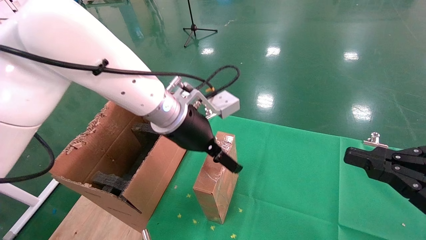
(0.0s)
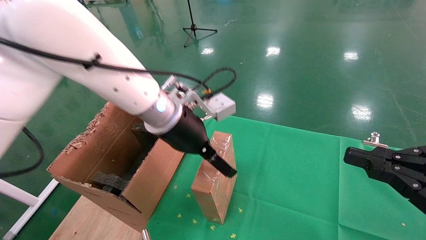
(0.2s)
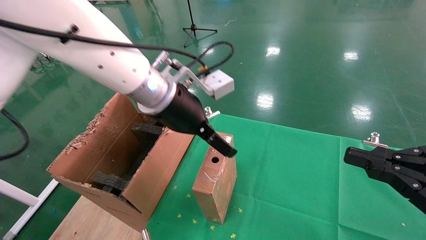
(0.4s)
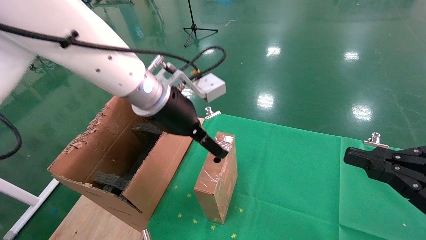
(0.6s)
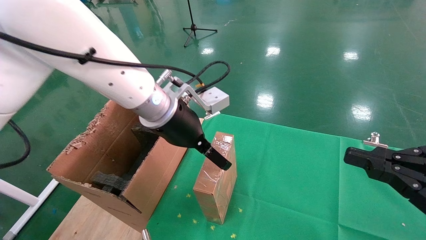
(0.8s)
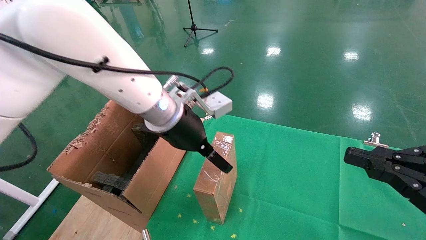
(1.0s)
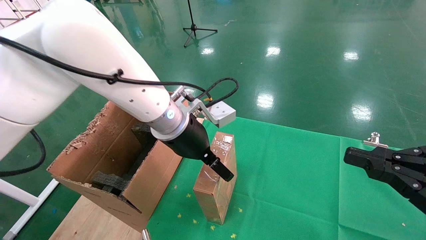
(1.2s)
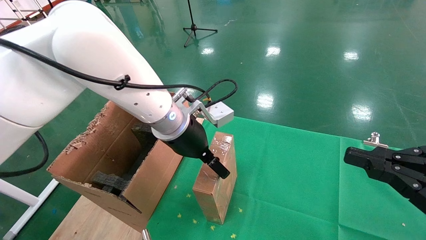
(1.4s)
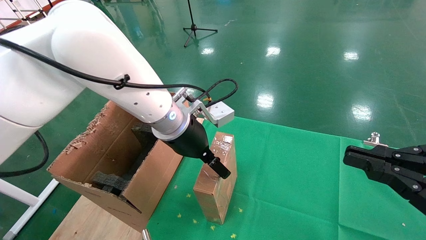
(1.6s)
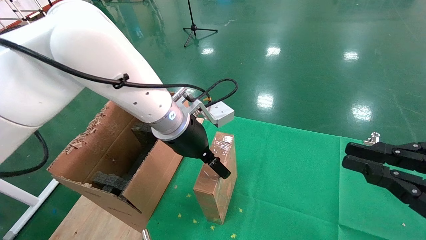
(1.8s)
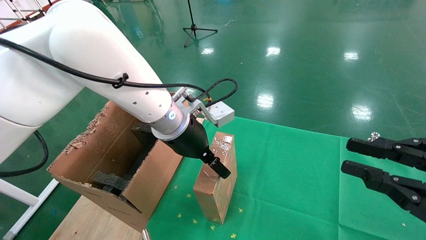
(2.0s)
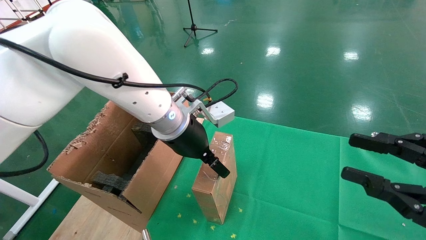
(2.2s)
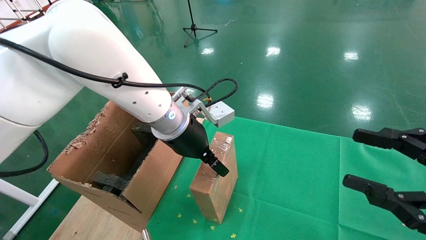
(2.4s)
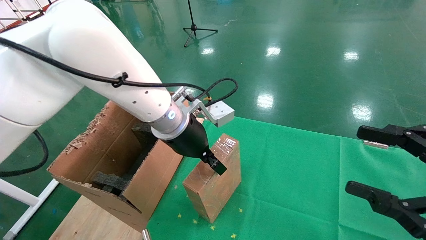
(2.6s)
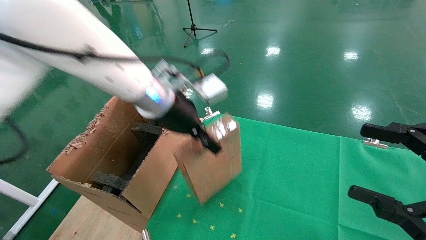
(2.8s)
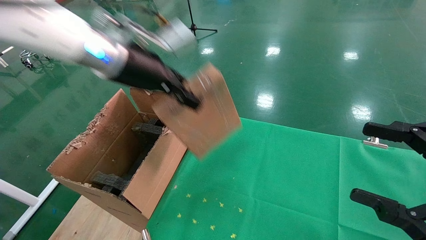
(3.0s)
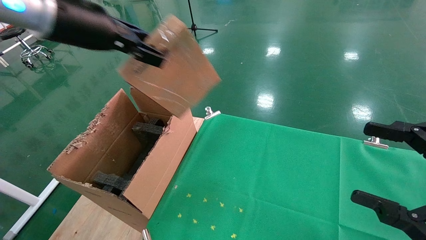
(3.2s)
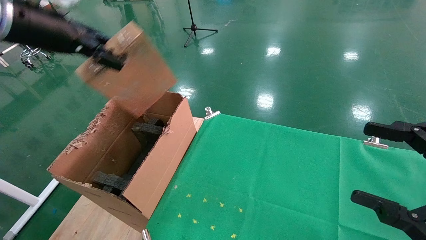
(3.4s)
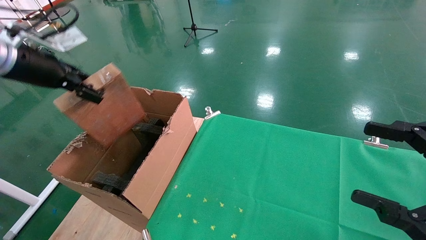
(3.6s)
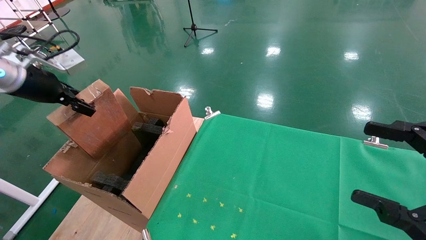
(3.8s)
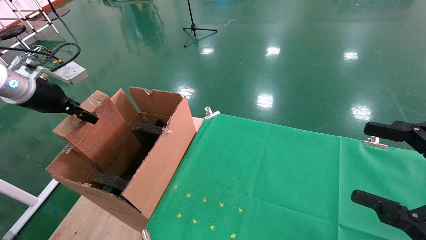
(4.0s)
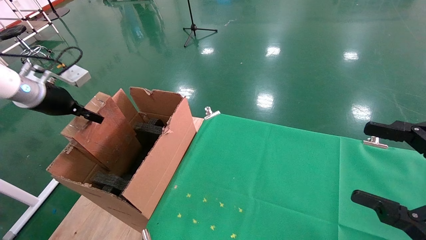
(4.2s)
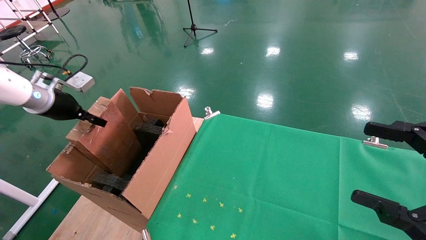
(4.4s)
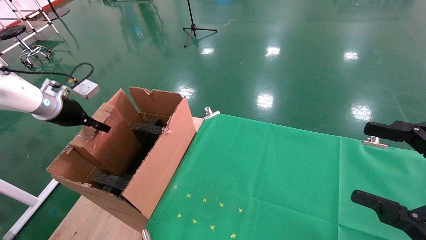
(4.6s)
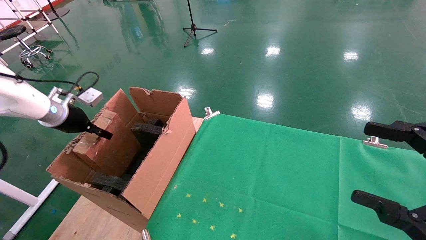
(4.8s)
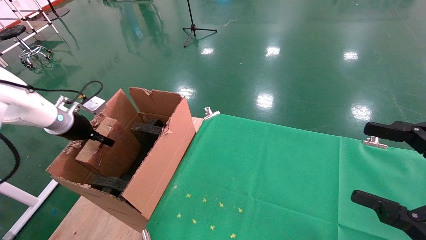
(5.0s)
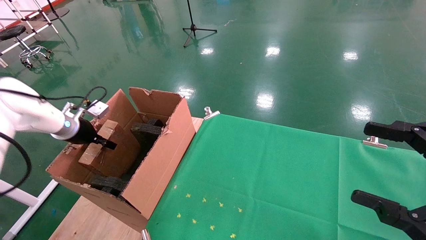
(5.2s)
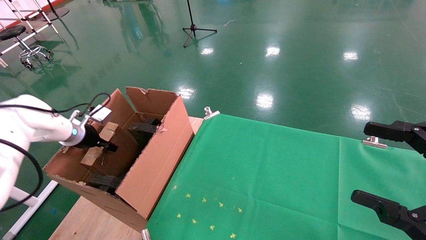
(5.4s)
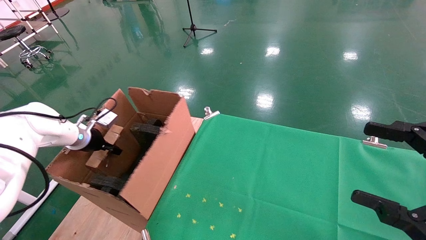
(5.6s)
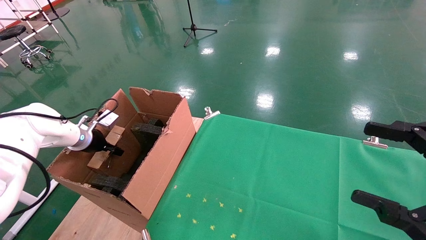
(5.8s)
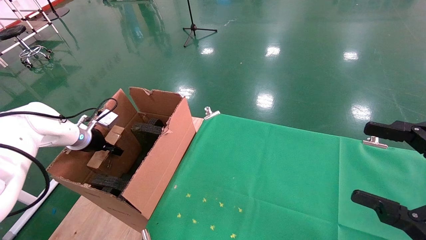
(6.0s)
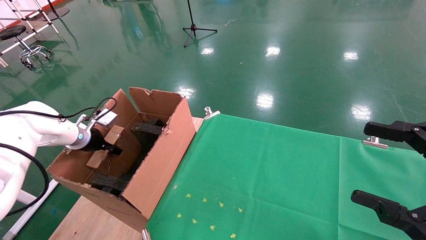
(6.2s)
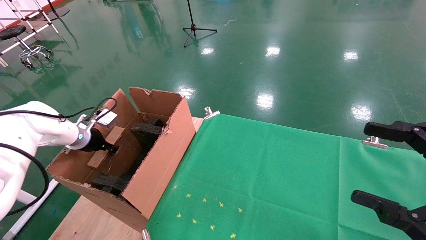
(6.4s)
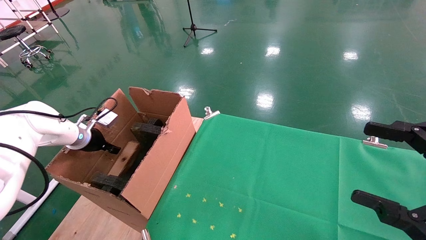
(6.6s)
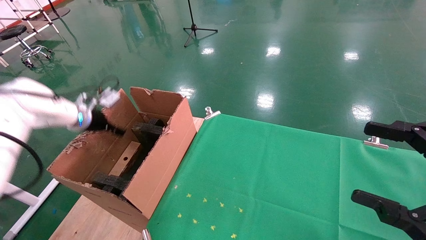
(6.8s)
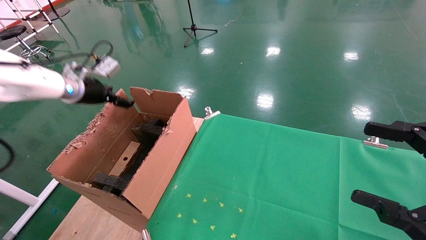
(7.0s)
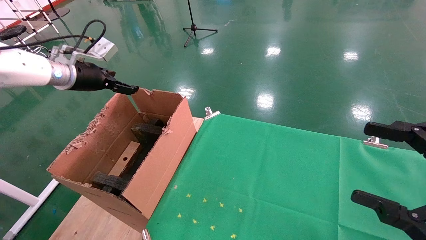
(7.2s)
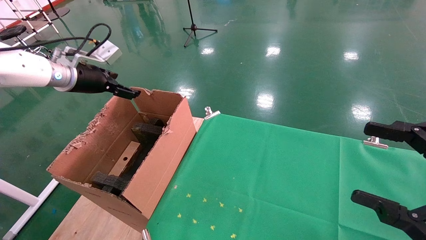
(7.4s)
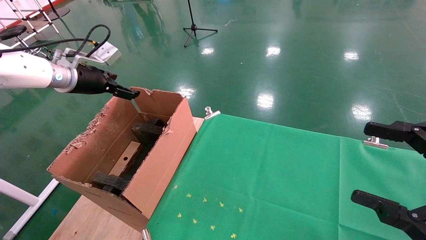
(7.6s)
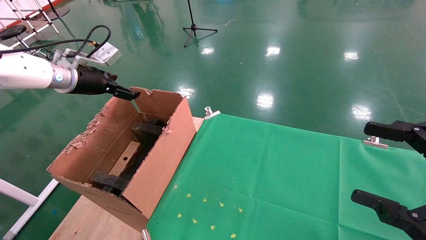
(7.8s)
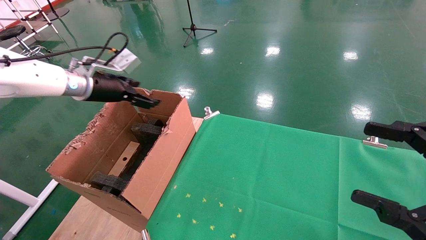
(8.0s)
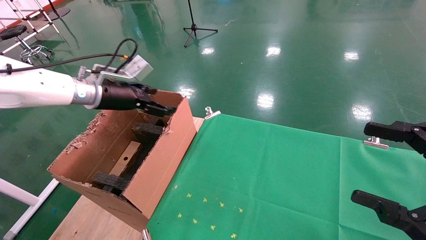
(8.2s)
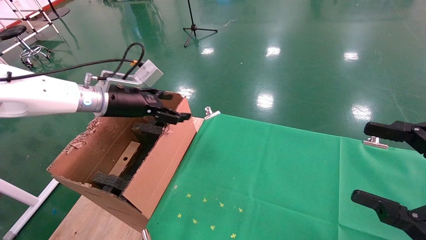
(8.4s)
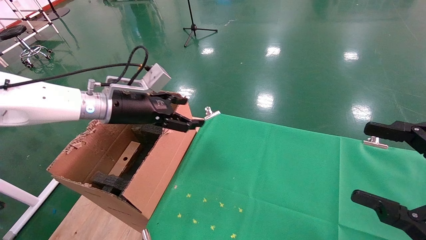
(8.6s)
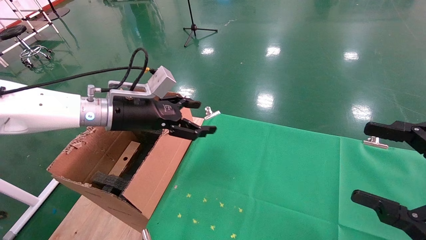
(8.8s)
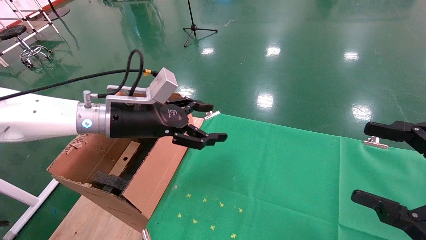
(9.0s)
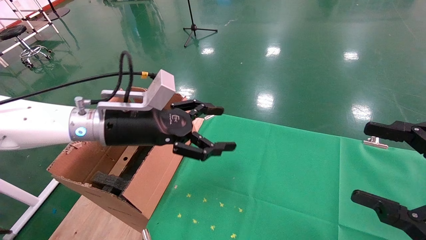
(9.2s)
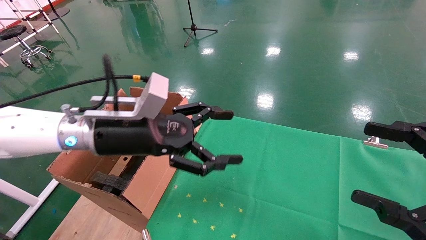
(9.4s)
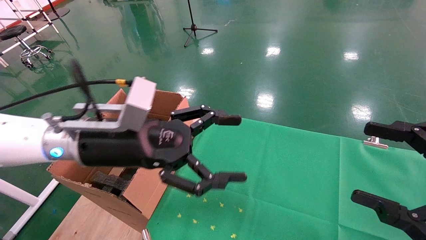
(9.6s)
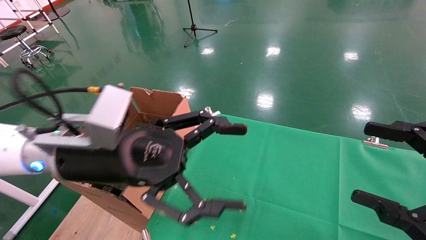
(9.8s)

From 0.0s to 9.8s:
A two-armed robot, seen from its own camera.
Task of the whole recording: using a robotic arm to pick up a cardboard box and palace it the carton.
Step, from 0.0s to 2.6s: Pick up the mouse and the power cord paper box.
Step, from 2.8s to 7.0s: Place the mouse and the power cord paper box into the container.
From 0.0s to 1.4s: There are only small adjustments of the grippers.
From 1.4s to 2.8s: The right gripper opens its fingers. The left gripper is displaced upward and to the left by roughly 10 cm, and closes up.
From 2.8s to 4.2s: The left gripper moves to the left, approximately 30 cm.
From 4.2s to 5.6s: The left gripper moves downward and forward, about 15 cm.
From 5.6s to 7.0s: The left gripper heads upward, covering some 15 cm, and opens its fingers.
From 7.0s to 8.4s: The left gripper heads to the right, covering about 10 cm.
From 8.4s to 9.8s: The left gripper moves backward and to the right, some 20 cm.

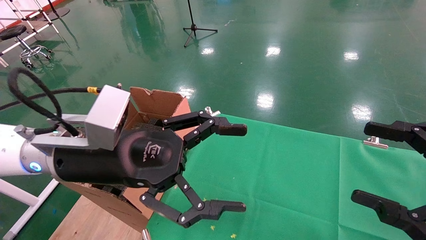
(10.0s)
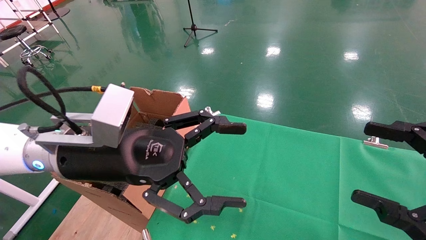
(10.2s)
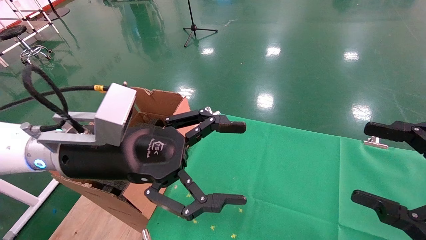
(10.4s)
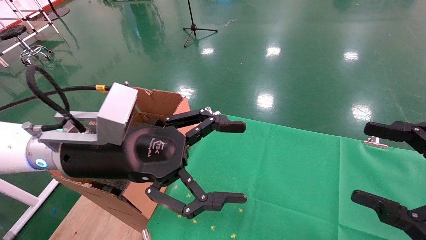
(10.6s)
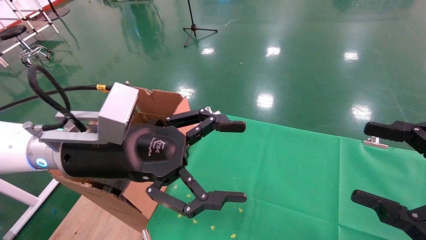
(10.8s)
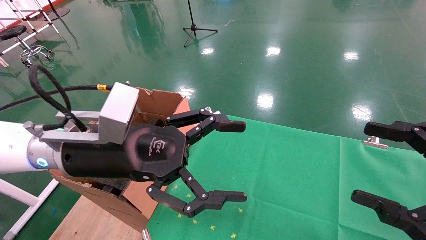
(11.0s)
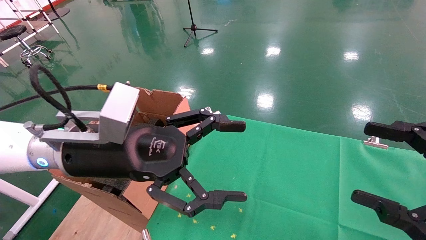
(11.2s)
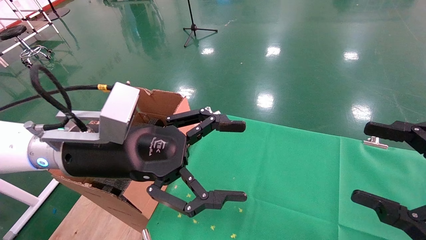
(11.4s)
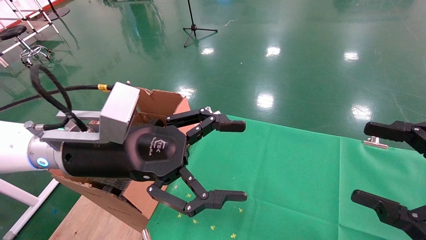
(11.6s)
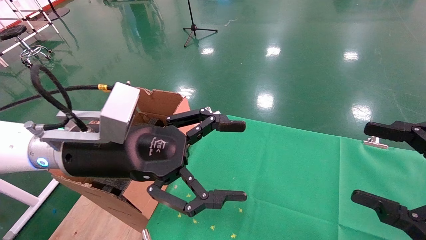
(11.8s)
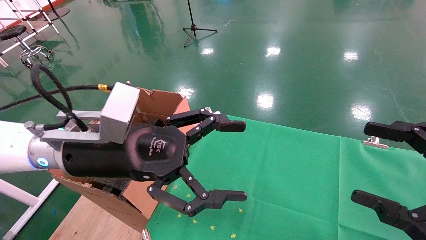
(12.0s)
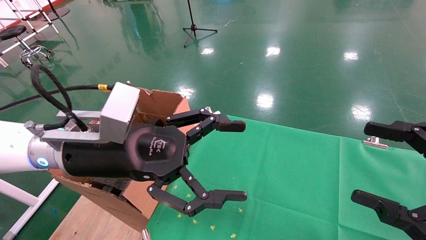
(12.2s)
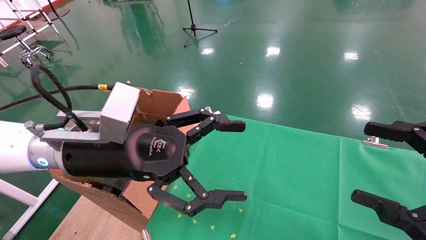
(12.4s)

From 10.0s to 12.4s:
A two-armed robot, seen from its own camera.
Task of the whole recording: using a robotic arm to pick up a cardboard box and palace it the carton.
From 10.0s to 12.4s: Both grippers stay put.

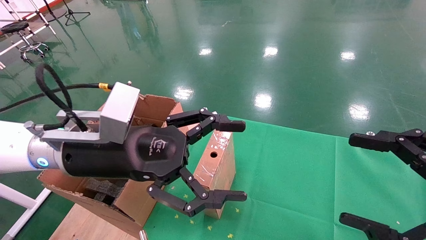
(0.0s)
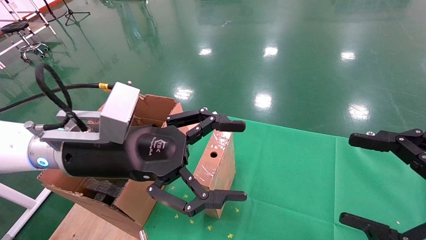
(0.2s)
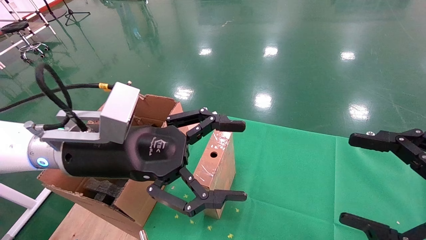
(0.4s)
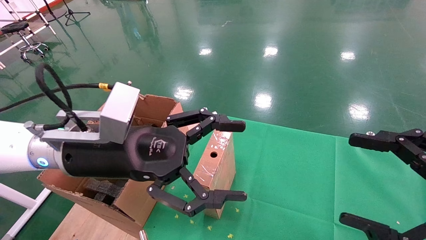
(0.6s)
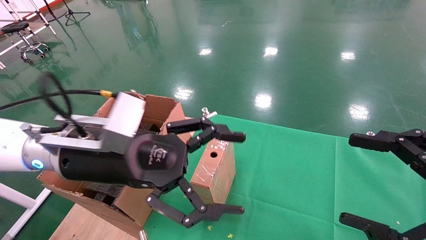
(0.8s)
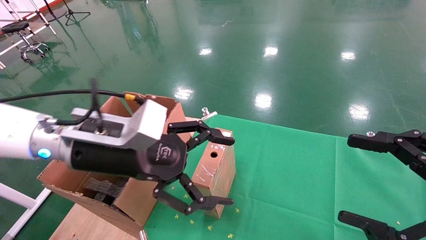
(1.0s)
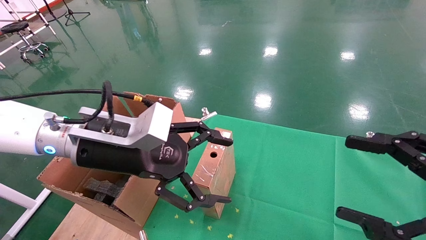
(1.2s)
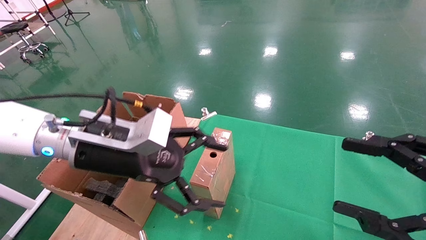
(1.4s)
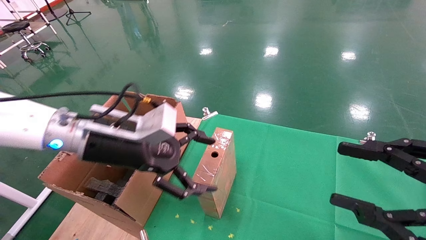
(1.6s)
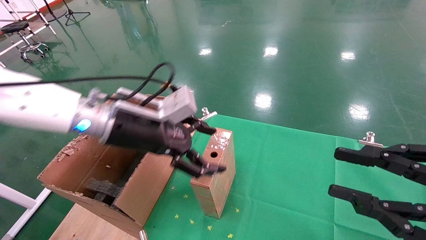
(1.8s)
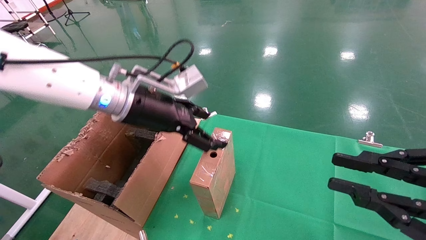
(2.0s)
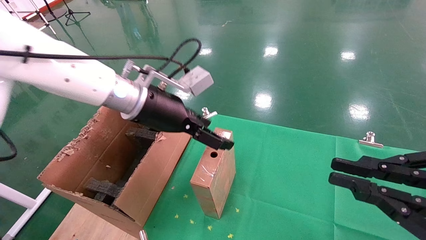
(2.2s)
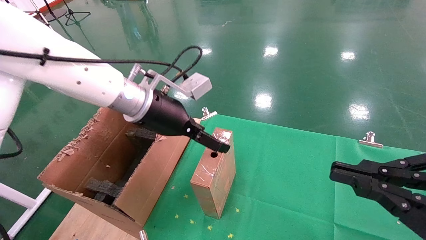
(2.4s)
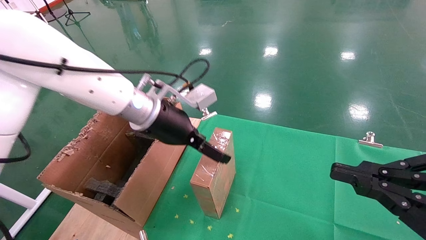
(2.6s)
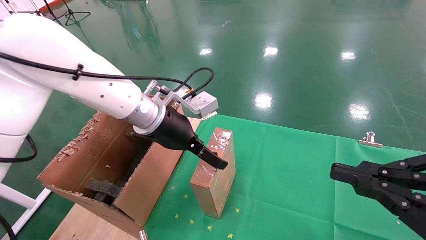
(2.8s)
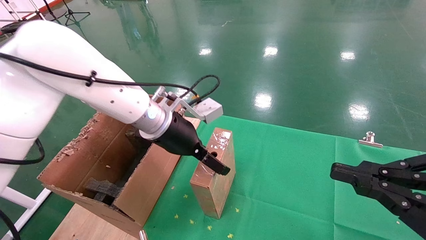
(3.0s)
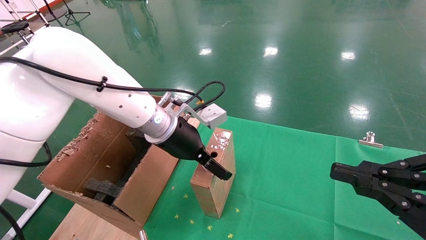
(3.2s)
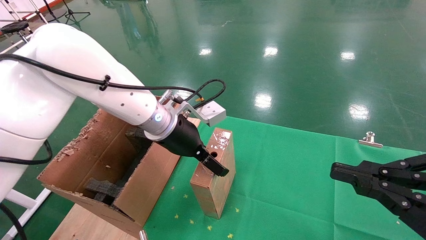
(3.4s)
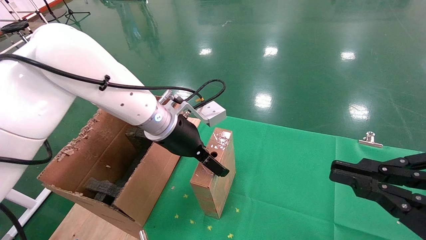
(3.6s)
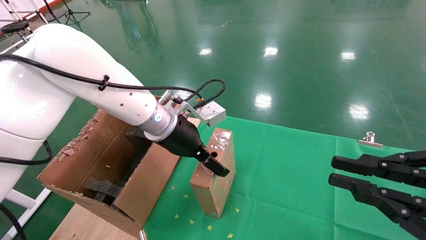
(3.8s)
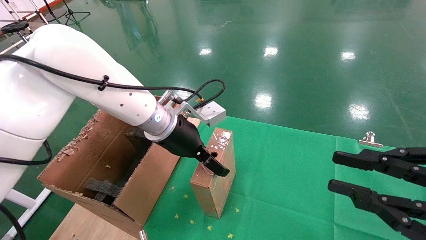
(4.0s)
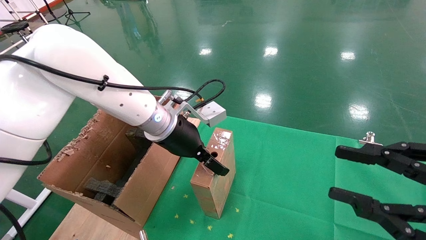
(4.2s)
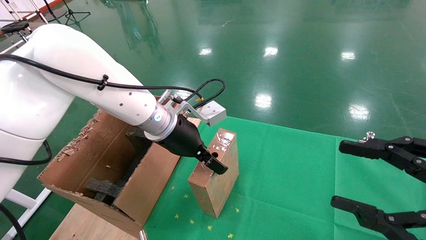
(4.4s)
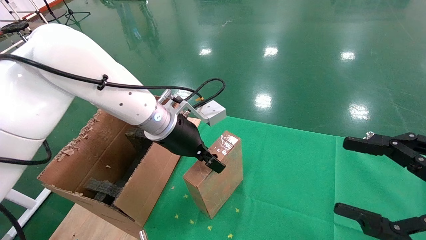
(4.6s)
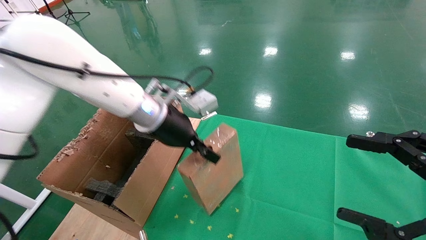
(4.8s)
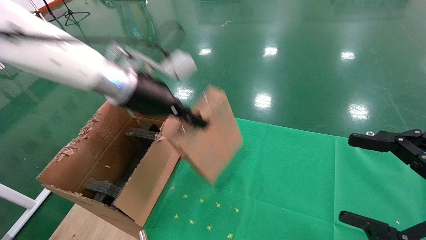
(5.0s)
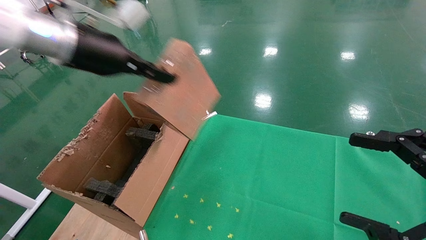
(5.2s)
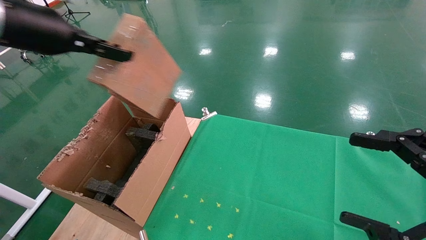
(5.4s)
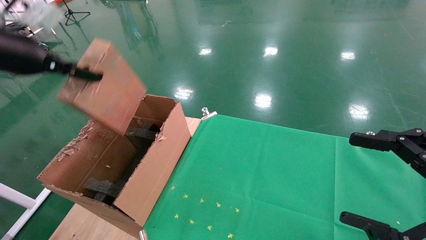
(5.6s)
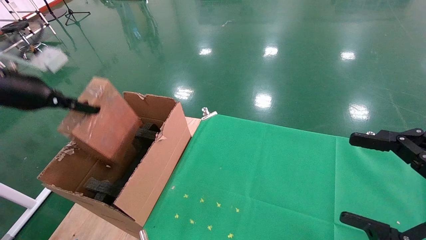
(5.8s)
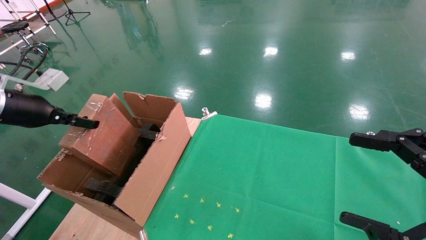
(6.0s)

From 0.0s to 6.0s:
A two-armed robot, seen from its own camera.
Task of the whole recording: using a robotic arm to pick up a cardboard box and palace it the carton.
Step, from 1.0s to 4.6s: Pick up the mouse and the power cord paper box.
From 0.0s to 1.6s: The left gripper goes approximately 5 cm forward; the right gripper closes up.
From 1.6s to 3.0s: The right gripper closes, while the left gripper goes roughly 10 cm forward and to the right.
From 3.0s to 4.4s: The right gripper opens its fingers. The left gripper closes up.
From 4.4s to 6.0s: The left gripper moves to the left, some 30 cm, and closes. The right gripper opens its fingers.
